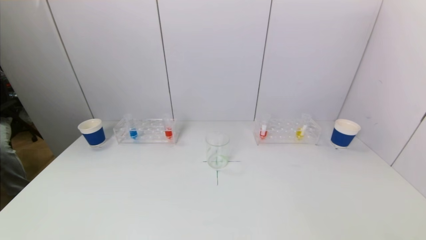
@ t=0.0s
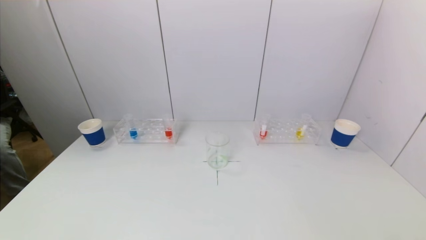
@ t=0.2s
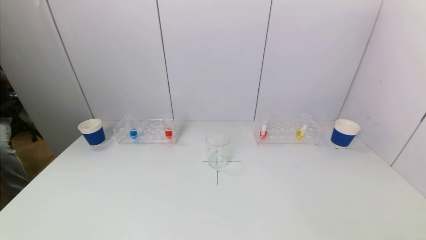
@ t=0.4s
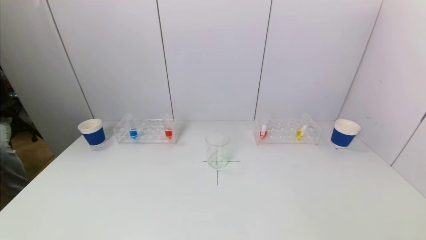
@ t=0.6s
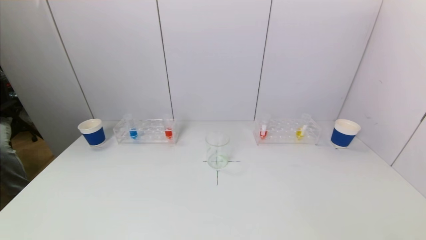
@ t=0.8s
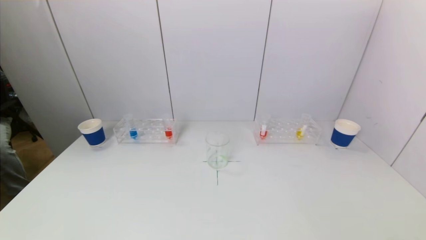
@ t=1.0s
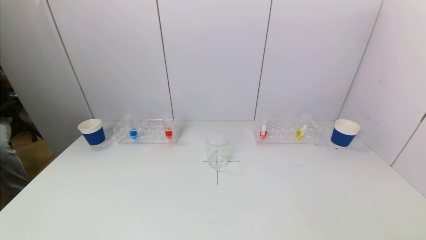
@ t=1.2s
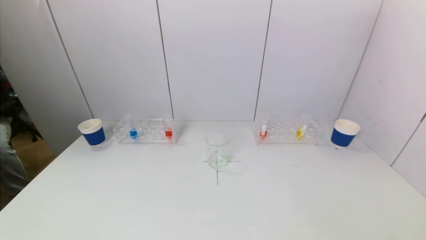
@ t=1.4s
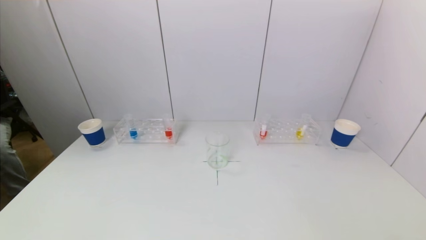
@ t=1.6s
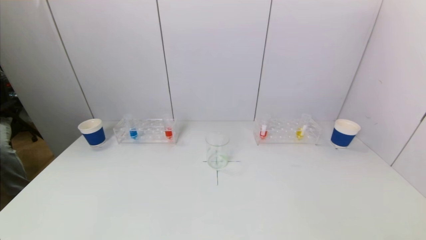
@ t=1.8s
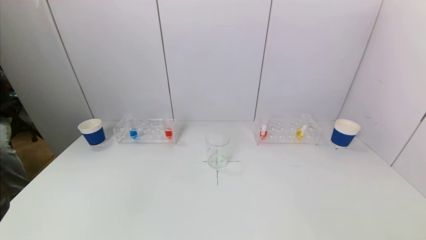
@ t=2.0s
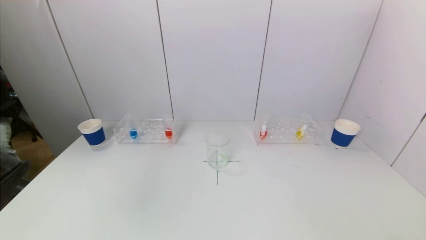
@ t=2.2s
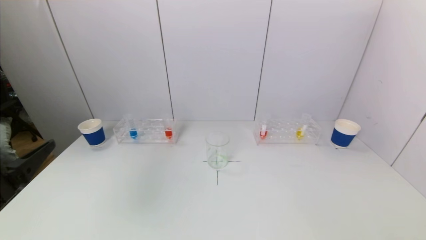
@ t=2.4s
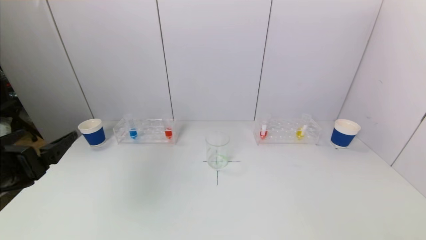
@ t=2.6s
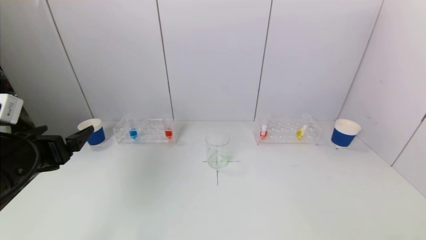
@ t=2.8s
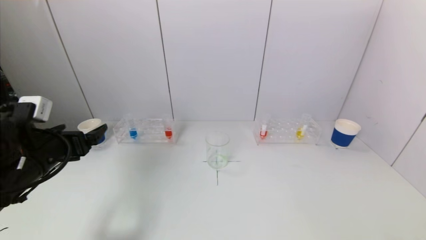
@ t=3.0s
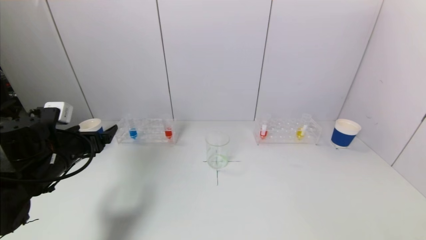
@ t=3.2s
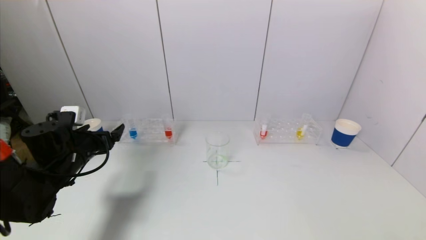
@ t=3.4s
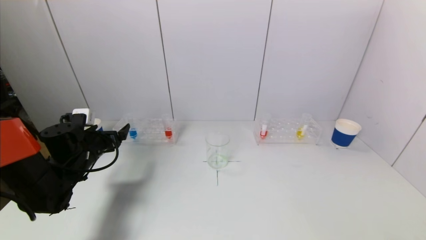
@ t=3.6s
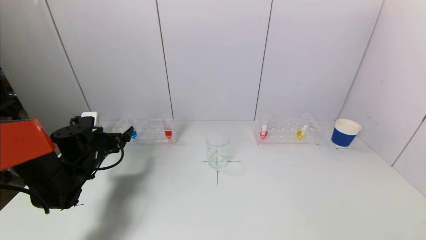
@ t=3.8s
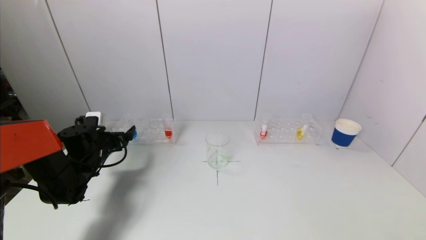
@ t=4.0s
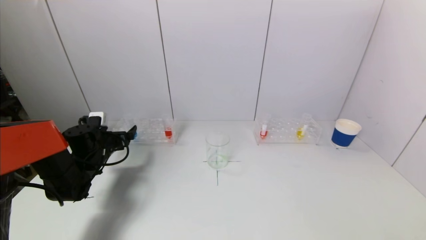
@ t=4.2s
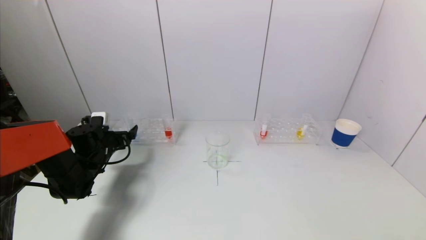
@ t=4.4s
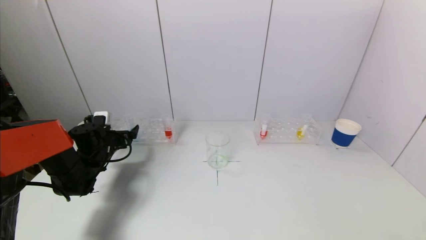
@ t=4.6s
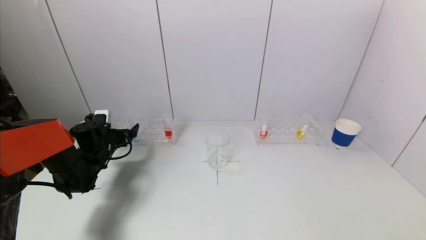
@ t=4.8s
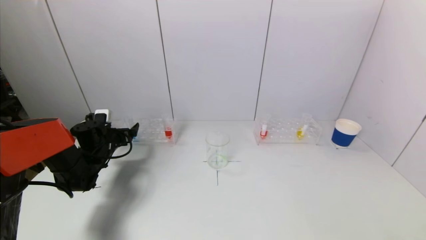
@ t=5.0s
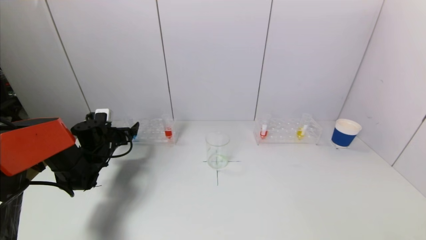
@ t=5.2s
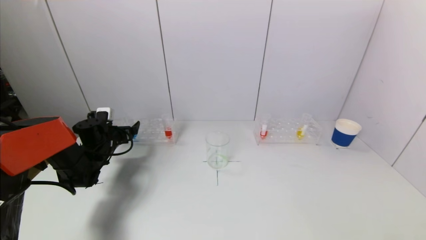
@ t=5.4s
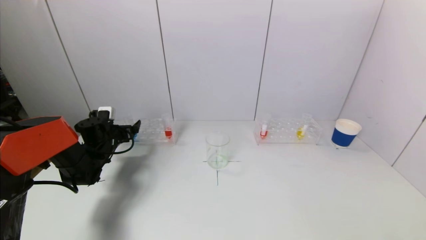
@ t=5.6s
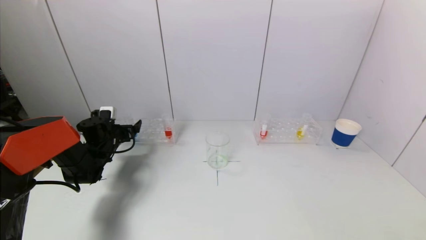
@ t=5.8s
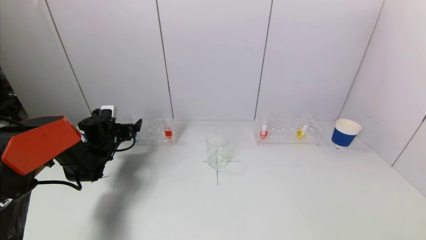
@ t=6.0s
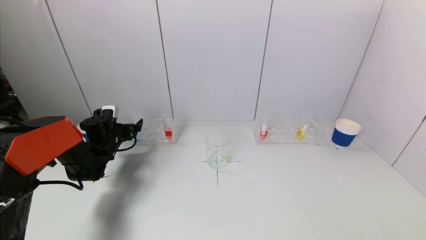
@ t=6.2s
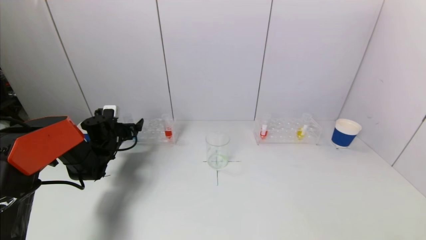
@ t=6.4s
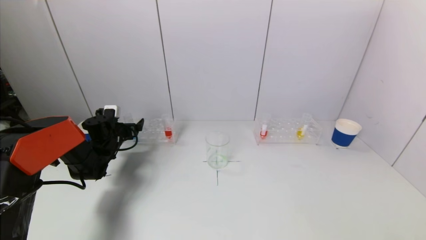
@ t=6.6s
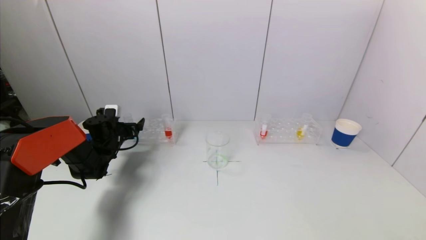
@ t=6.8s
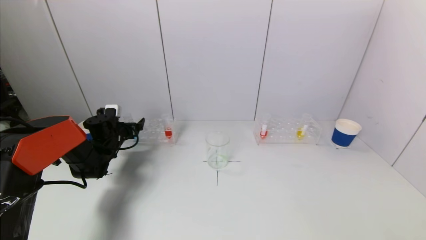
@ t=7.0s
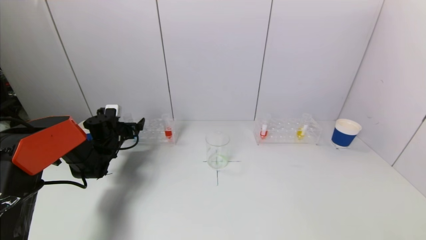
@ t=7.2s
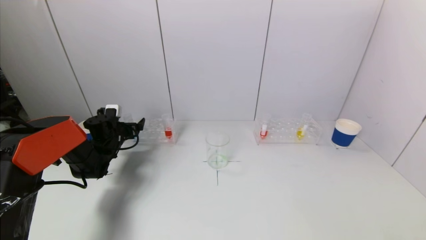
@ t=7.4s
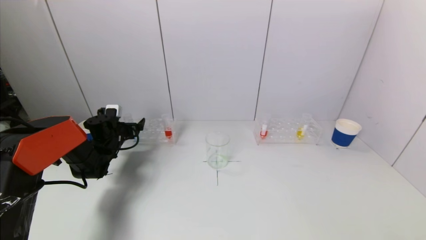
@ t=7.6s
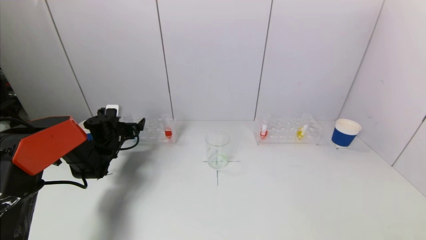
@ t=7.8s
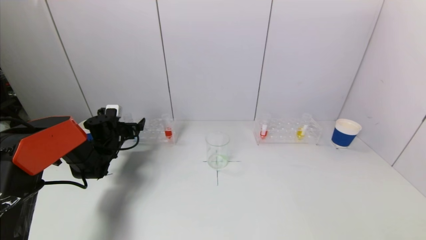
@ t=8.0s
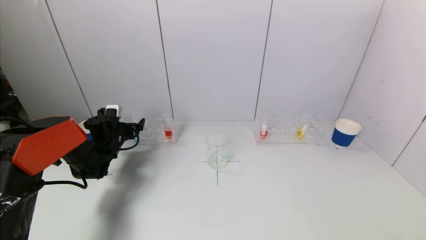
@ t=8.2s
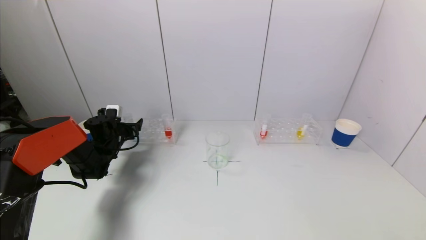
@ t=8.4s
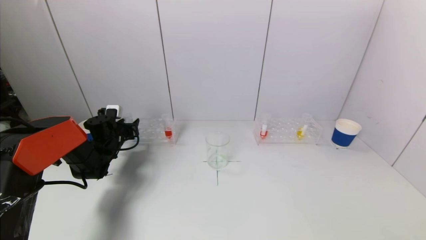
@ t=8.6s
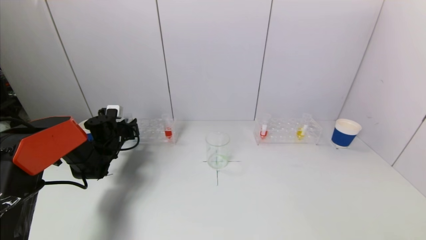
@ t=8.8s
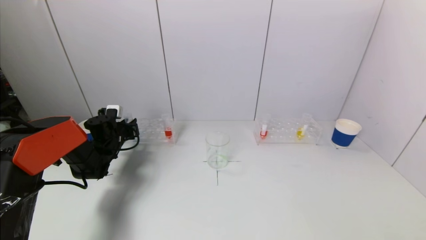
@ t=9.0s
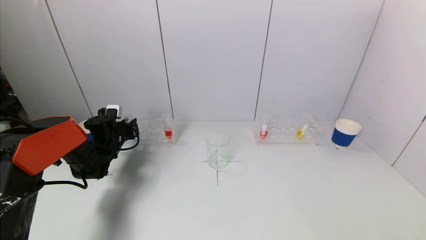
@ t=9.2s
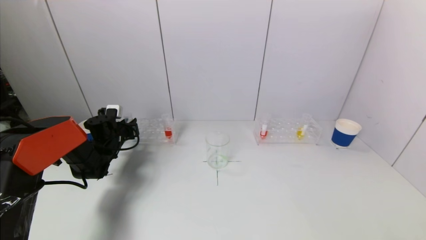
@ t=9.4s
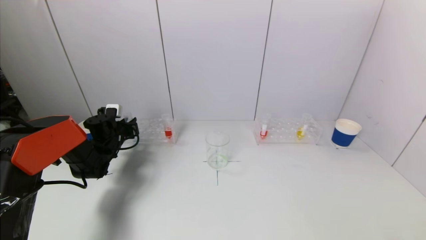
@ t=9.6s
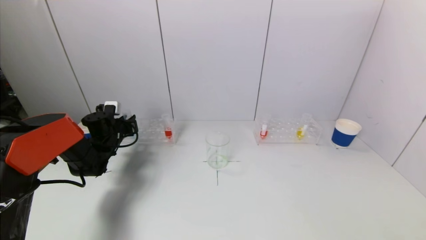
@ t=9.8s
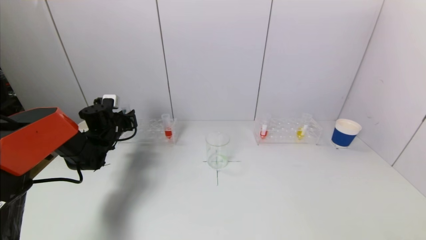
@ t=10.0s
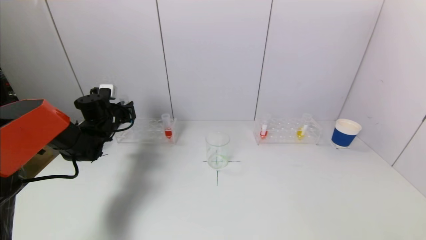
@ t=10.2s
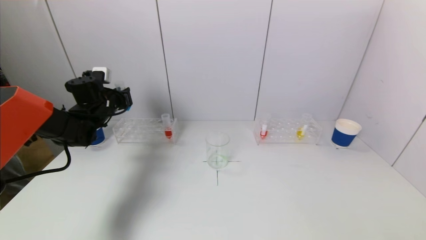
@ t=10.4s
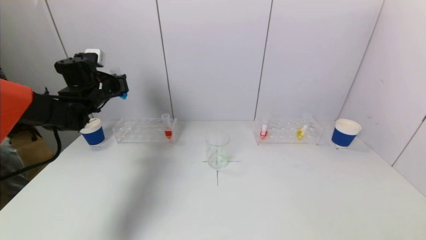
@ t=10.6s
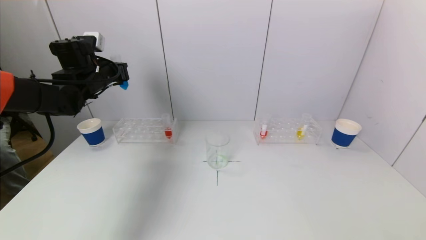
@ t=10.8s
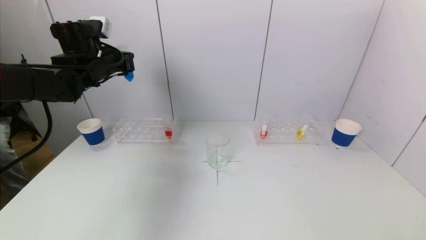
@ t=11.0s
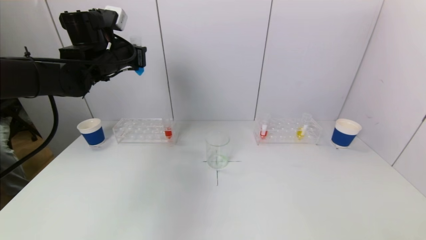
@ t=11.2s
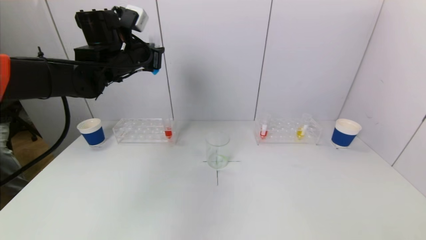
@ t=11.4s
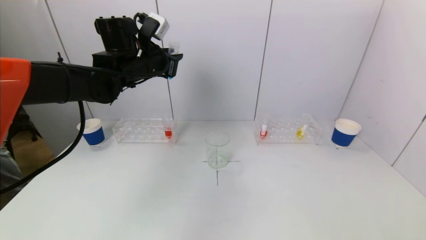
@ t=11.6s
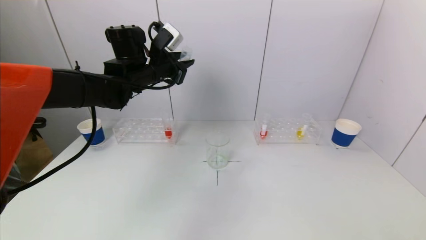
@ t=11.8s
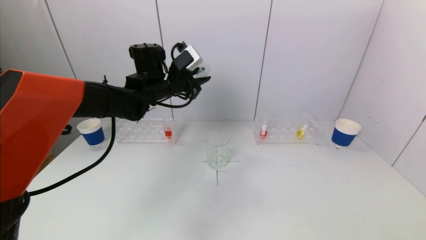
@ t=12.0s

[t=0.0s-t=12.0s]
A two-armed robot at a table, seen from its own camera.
Task of the whole recording: pick up a test tube with pigment on left test tube rack and a test tube with pigment on right test tube rack by grippers and pour them into the beaker.
Step, t=0.0s to t=9.0s: Grasp the blue reagent with the left gripper.
t=1.6s to t=3.0s: The left gripper goes approximately 25 cm forward.
t=3.0s to t=4.4s: The left gripper moves forward and downward, roughly 20 cm.
t=4.4s to t=6.0s: There are only small adjustments of the grippers.
t=6.0s to t=7.6s: Neither gripper changes place.
t=9.0s to t=10.4s: The left gripper travels upward by about 10 cm.
t=10.4s to t=12.0s: The left gripper goes approximately 20 cm to the right and upward.

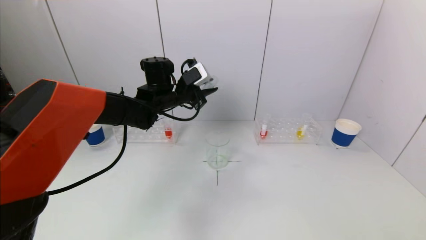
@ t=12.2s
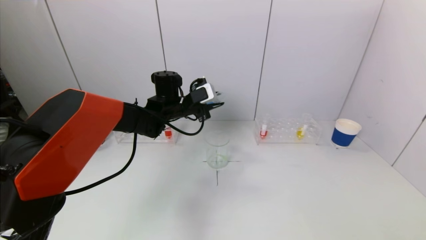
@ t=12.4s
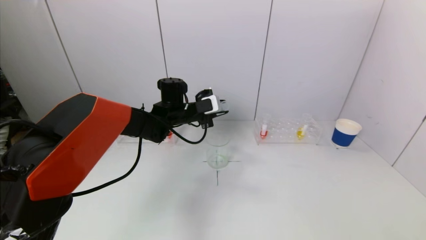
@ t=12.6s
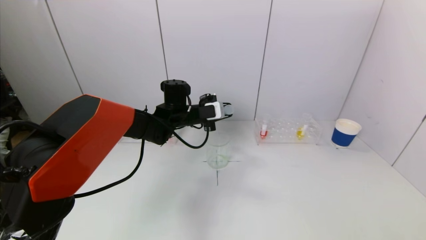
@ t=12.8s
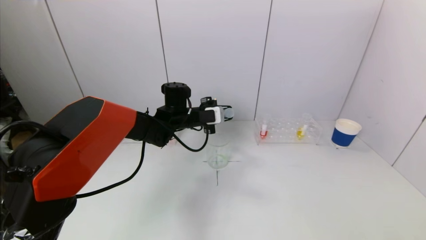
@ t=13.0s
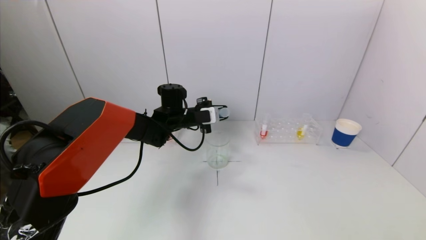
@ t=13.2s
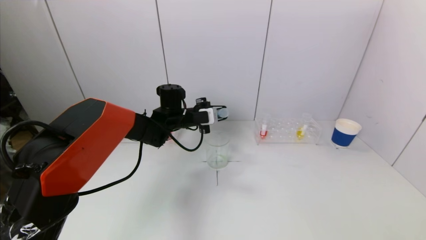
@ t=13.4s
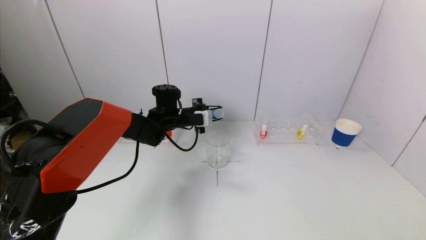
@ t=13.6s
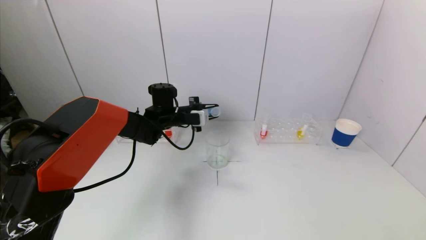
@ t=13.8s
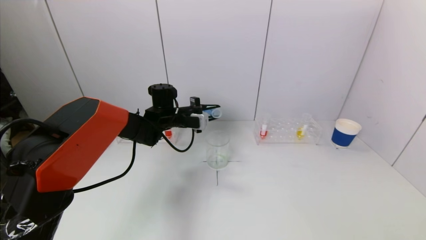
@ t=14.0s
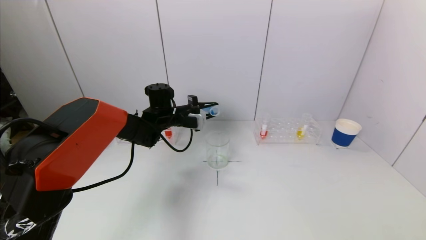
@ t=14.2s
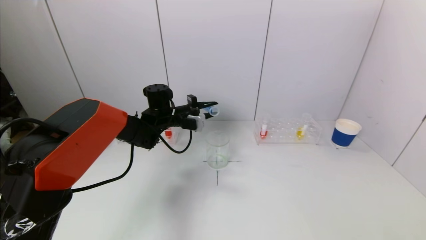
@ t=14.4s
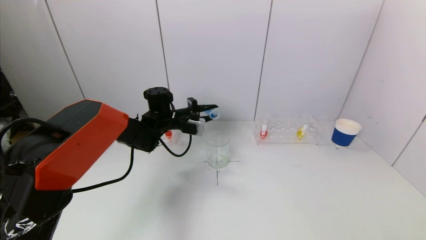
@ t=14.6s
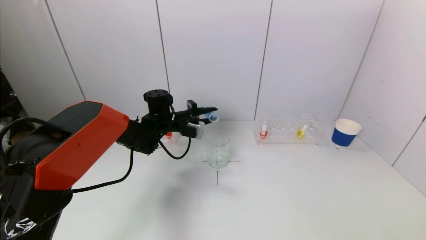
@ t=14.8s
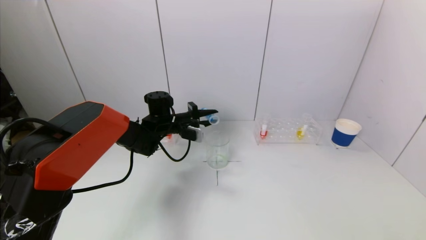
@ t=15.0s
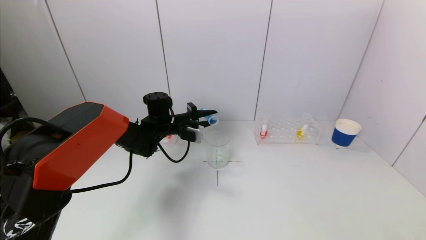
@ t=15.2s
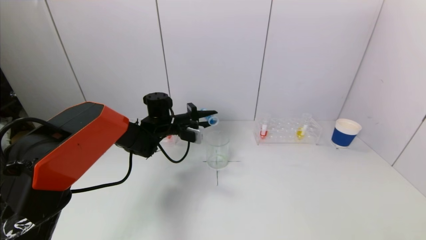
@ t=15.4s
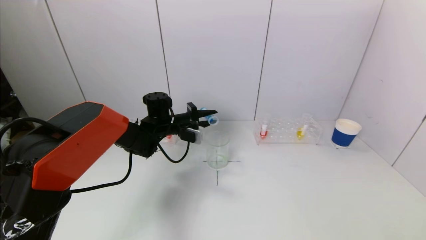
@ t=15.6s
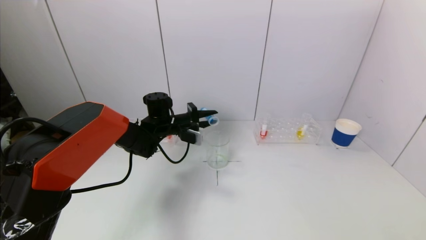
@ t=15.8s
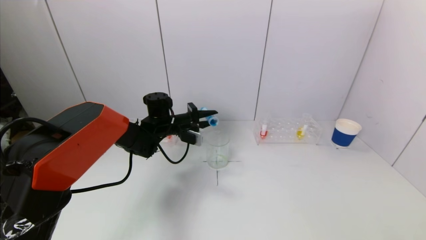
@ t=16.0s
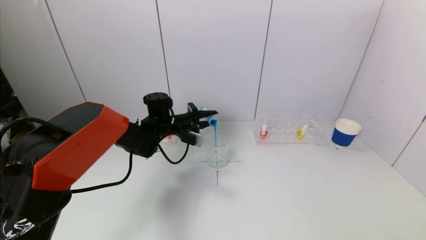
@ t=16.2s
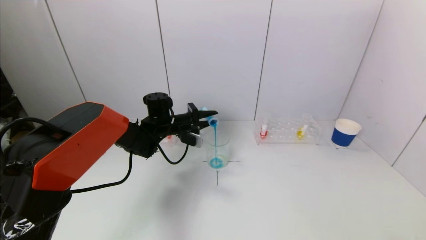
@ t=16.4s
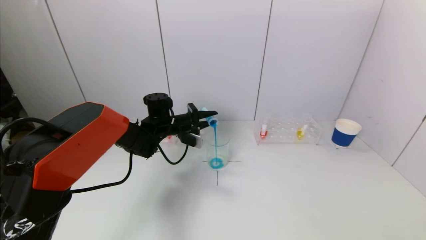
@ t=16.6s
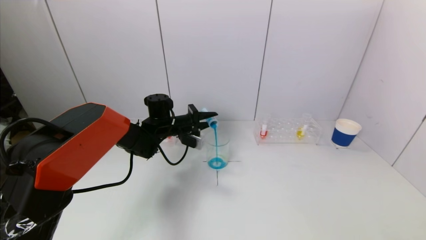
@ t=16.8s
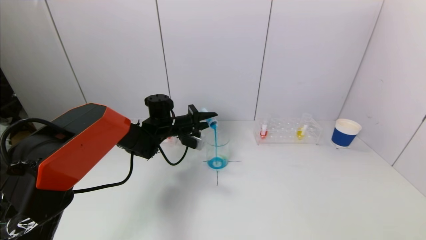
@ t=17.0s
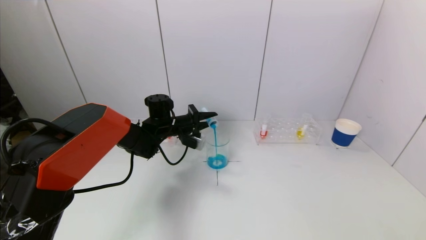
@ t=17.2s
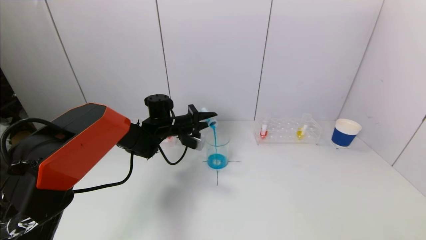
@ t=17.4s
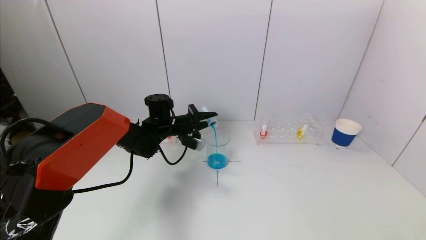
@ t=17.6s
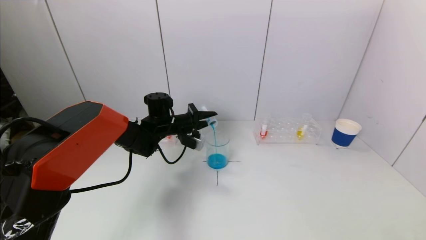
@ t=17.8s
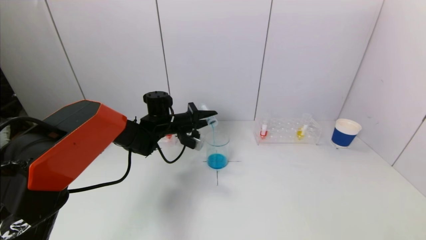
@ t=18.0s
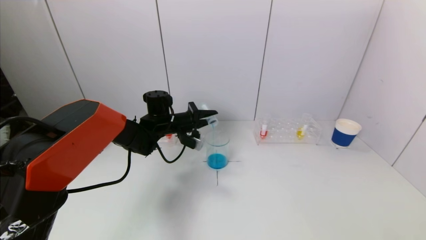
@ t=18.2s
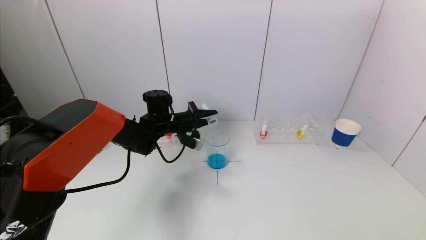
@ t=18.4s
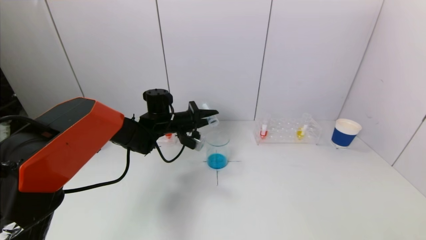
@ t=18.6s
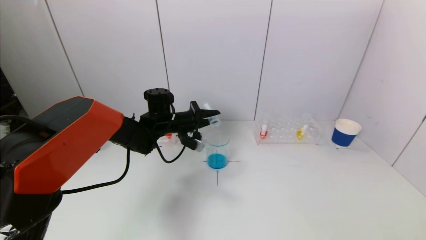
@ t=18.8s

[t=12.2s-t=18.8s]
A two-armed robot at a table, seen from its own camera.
Task of the whole recording: pick up a test tube with pigment on left test tube rack and a test tube with pigment on right test tube rack by grippers and pour them into the beaker.
t=12.2s to t=13.8s: The left gripper travels downward by roughly 10 cm.
t=13.8s to t=15.4s: The grippers move only a little.
t=15.4s to t=17.2s: The grippers move only a little.
t=17.2s to t=18.8s: The grippers make only small movements.
